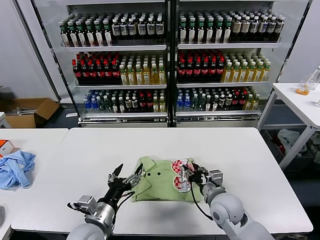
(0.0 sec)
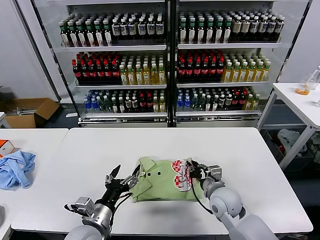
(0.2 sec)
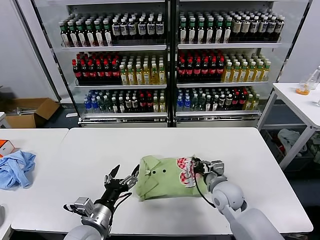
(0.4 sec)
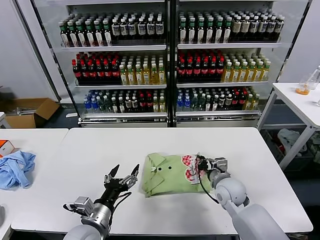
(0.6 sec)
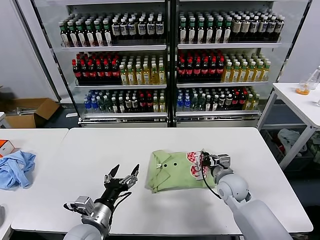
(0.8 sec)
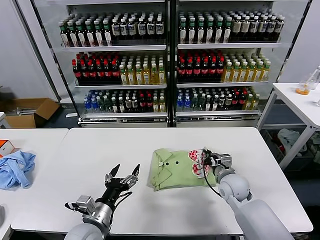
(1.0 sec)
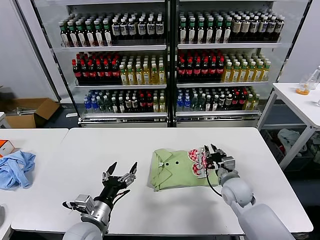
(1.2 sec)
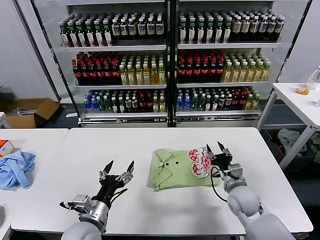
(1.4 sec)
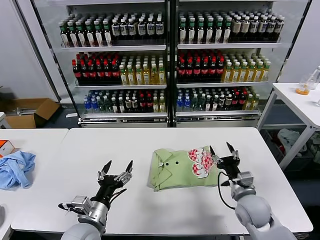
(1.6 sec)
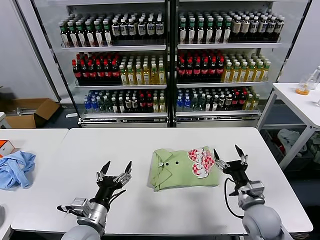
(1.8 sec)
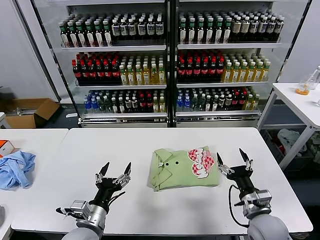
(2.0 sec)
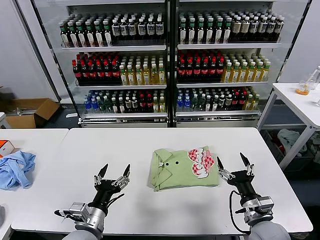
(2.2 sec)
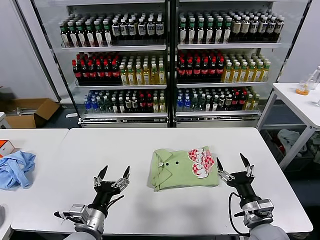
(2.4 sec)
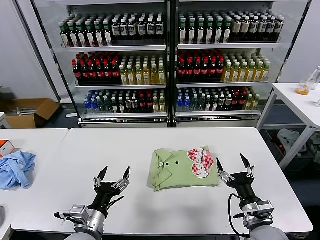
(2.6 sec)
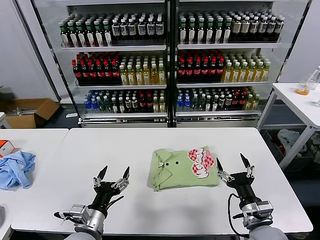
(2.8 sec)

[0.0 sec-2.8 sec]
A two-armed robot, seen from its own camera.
Task of the whole recording: fold and organize the clothes.
Step, 0.0 sec to 1.2 sec: Drag the clothes to the center of the table.
0.0 sec to 1.4 sec: The right gripper goes some 5 cm to the right, and closes, then reopens.
1.4 sec to 2.8 sec: The right gripper travels backward by some 15 cm, and opens.
